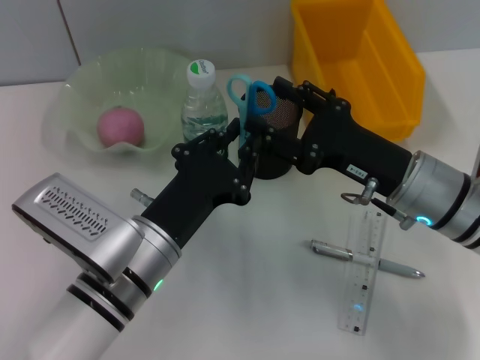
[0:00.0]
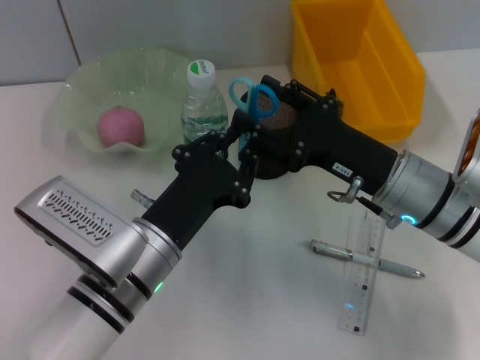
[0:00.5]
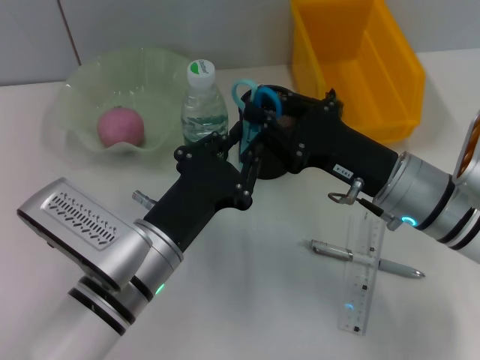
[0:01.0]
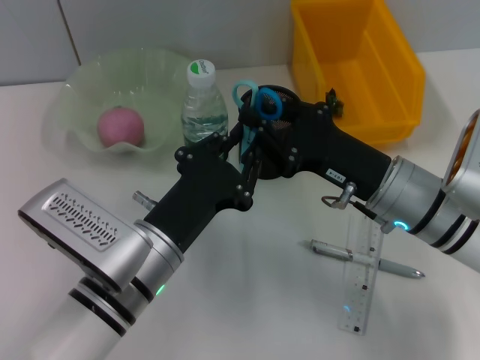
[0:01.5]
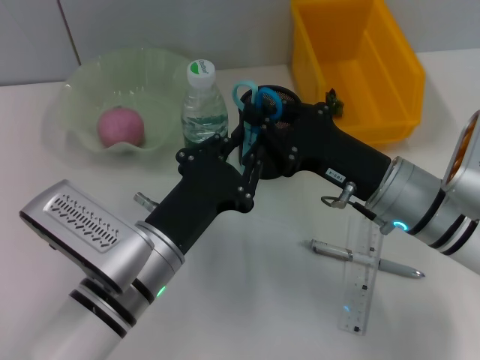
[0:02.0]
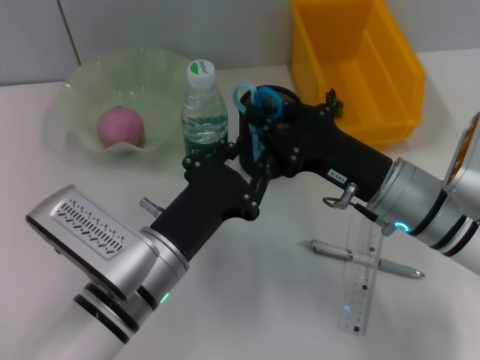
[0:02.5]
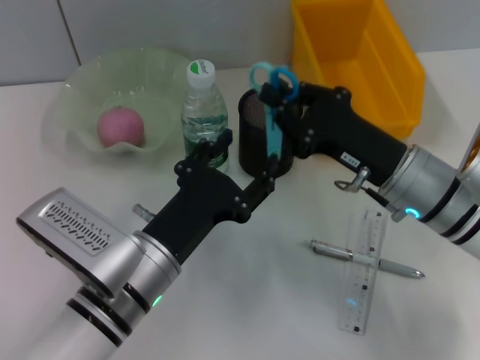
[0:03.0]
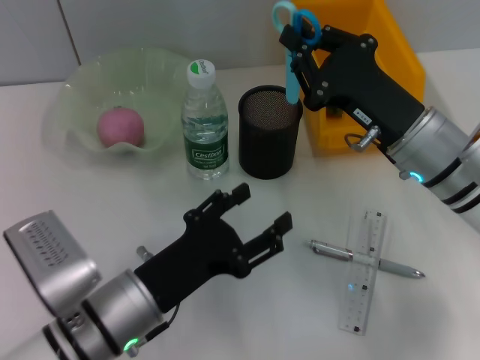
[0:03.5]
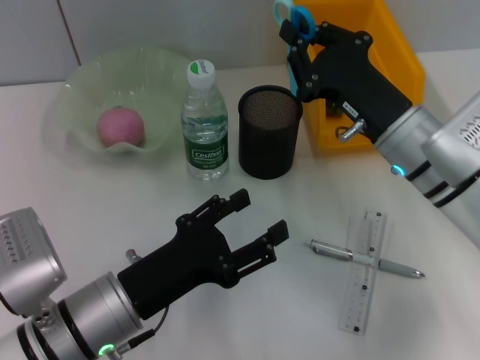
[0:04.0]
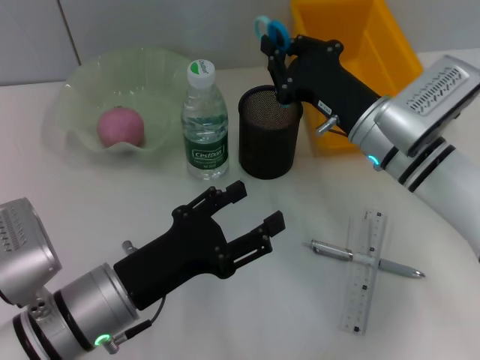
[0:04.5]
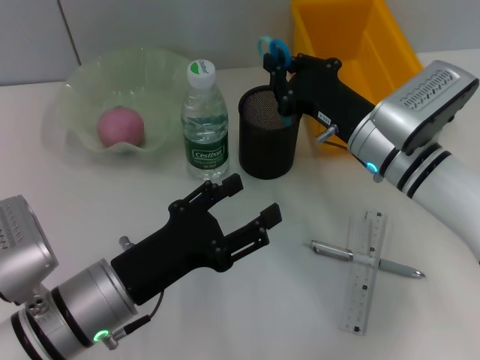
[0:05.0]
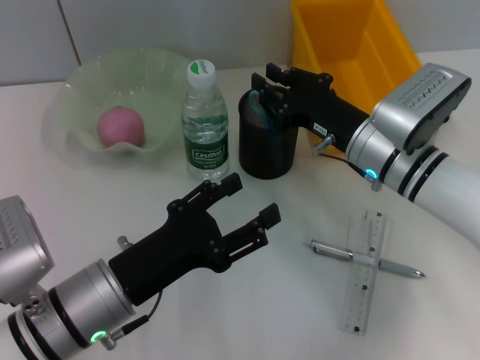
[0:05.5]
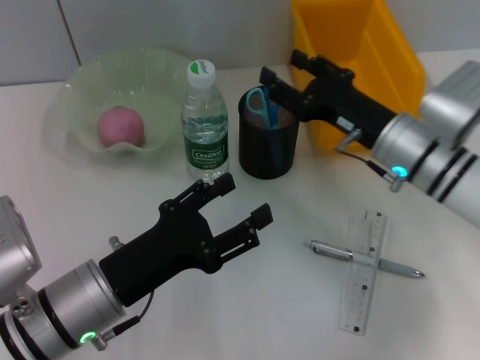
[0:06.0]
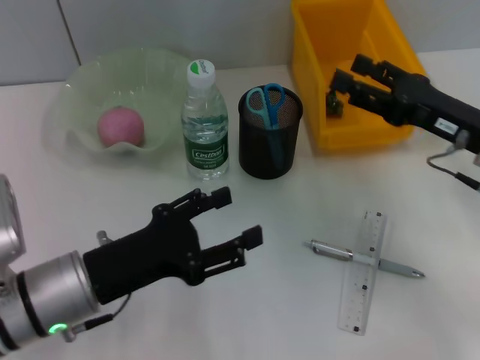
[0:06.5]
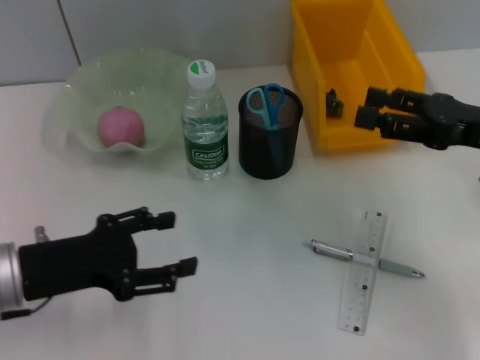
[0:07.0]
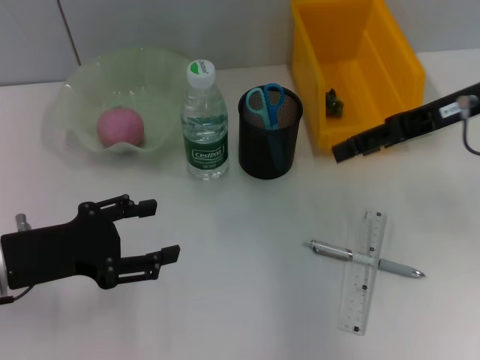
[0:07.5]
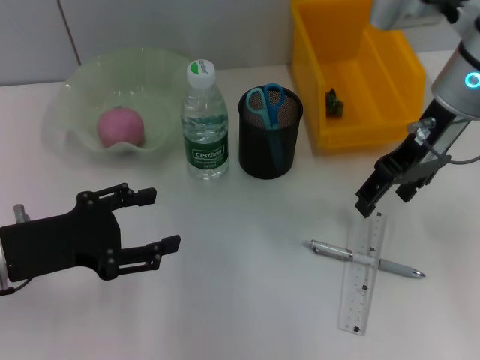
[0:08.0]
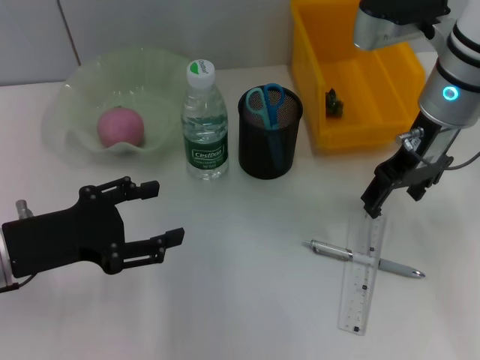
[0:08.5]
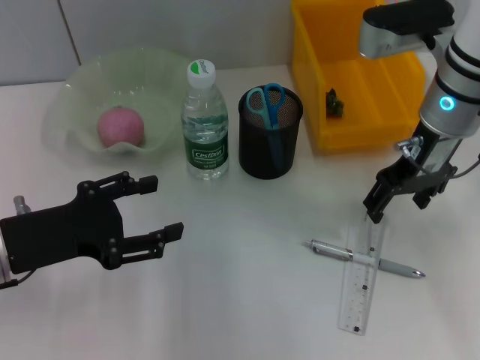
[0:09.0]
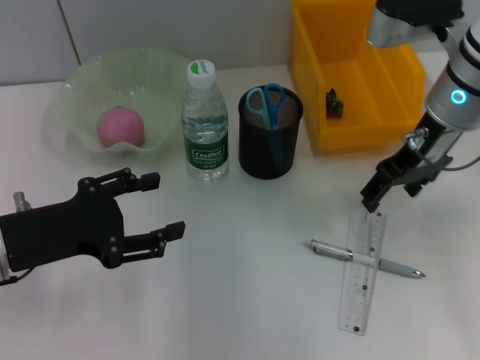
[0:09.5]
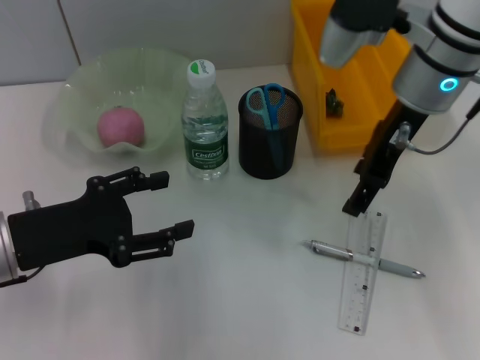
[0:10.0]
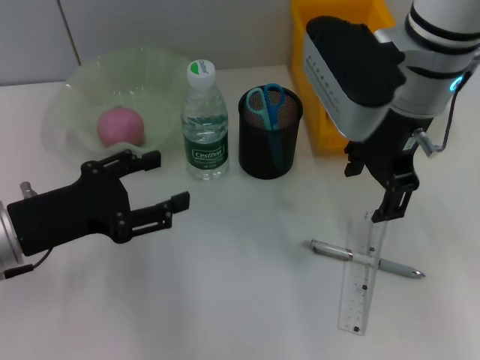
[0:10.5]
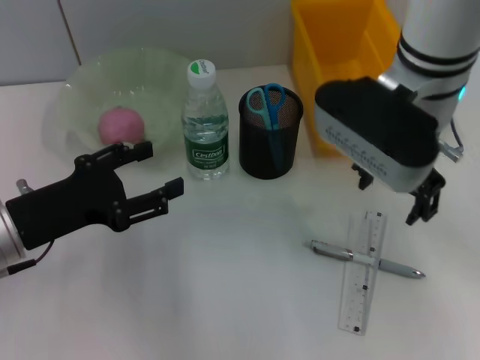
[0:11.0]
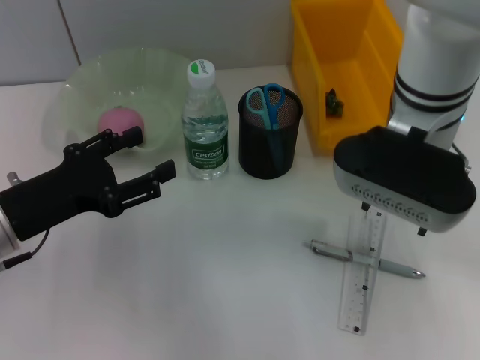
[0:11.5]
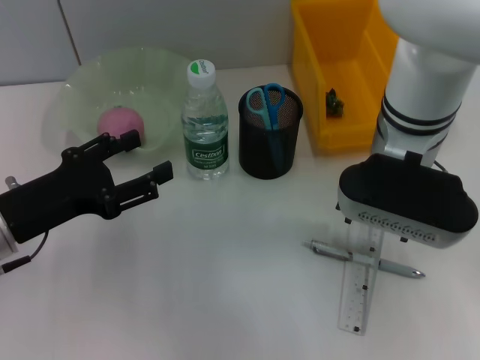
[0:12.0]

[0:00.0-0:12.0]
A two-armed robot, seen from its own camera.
Step, 0:00.0 to 0:03.0: Pass the blue scissors from the left hand to the right hand.
Step, 0:03.5 to 0:06.0: Place the blue scissors into the pen holder with the right hand.
0:00.0 to 0:02.0: The right gripper closes up.
0:02.0 to 0:04.0: The left gripper shifts by about 5 cm, and opens up.
0:04.0 to 0:06.0: The right gripper opens its fingers.
0:06.0 to 0:08.0: The right gripper shifts approximately 15 cm upward. Meanwhile the left gripper heads to the left, covering roughly 10 cm.
0:10.0 to 0:12.0: The right gripper changes place by approximately 5 cm.

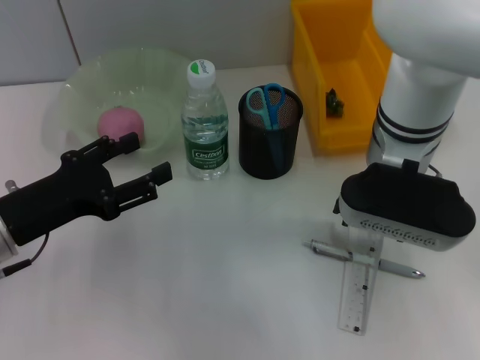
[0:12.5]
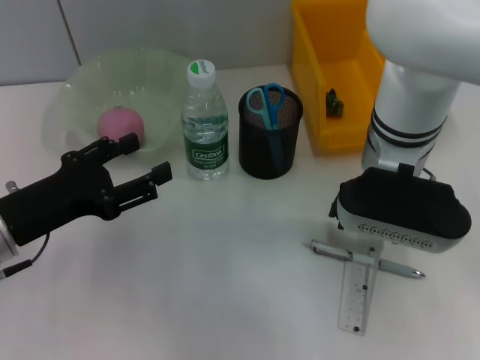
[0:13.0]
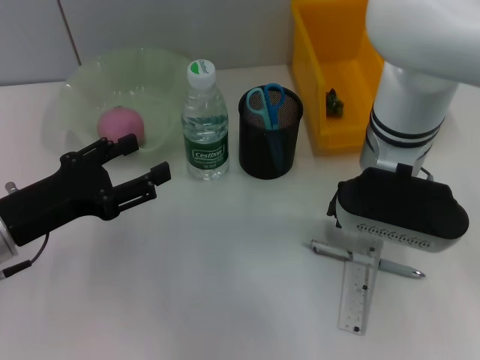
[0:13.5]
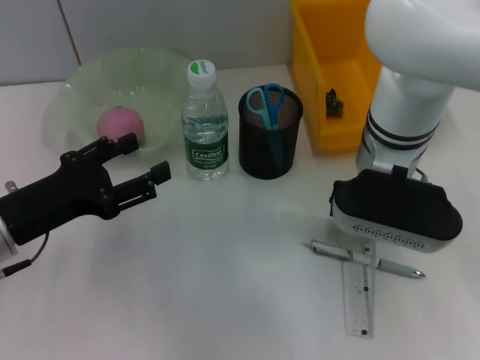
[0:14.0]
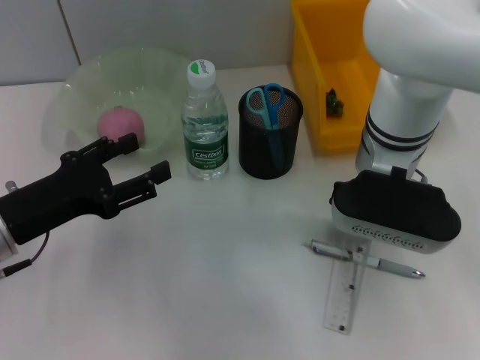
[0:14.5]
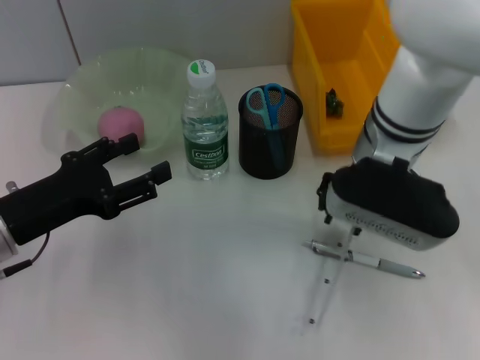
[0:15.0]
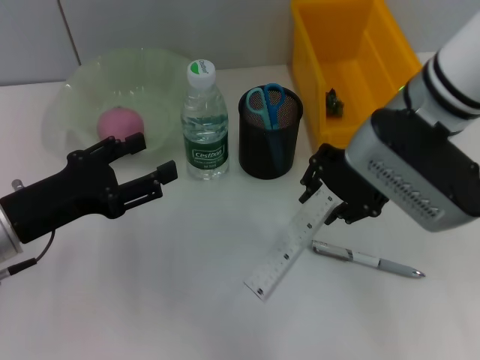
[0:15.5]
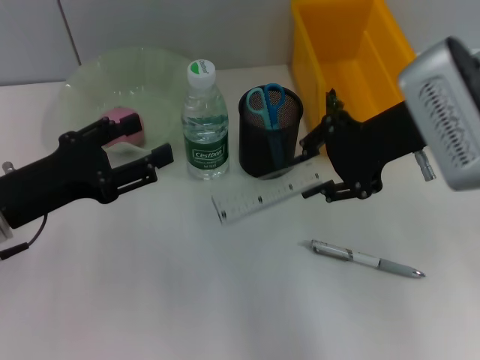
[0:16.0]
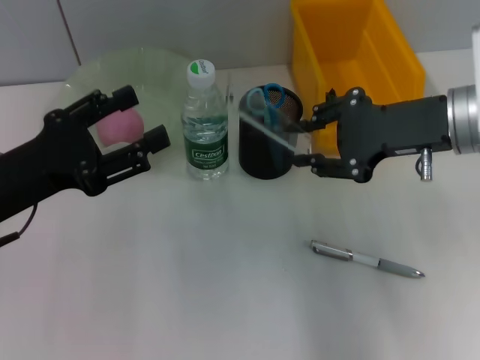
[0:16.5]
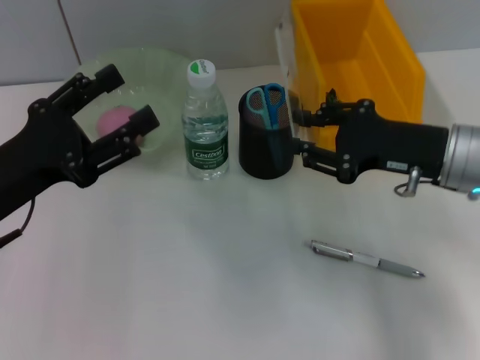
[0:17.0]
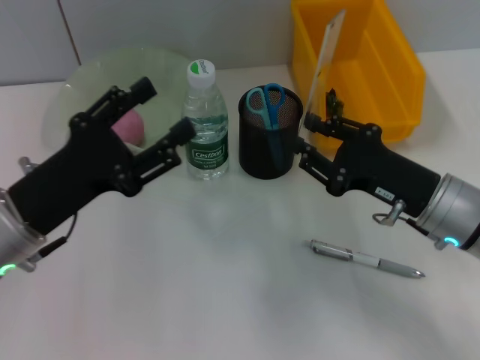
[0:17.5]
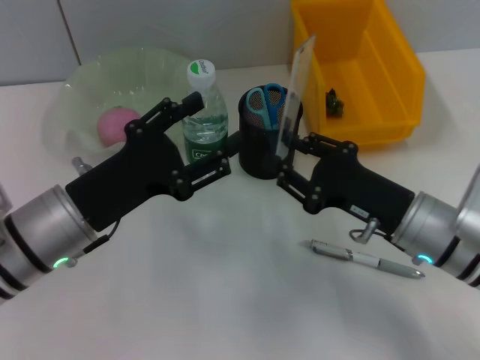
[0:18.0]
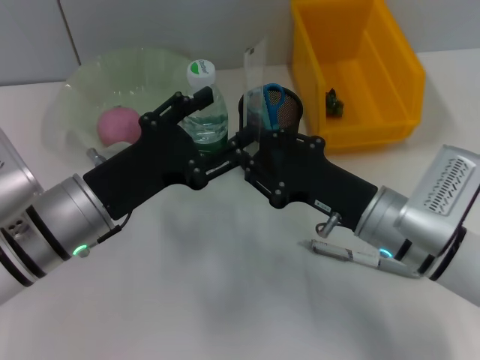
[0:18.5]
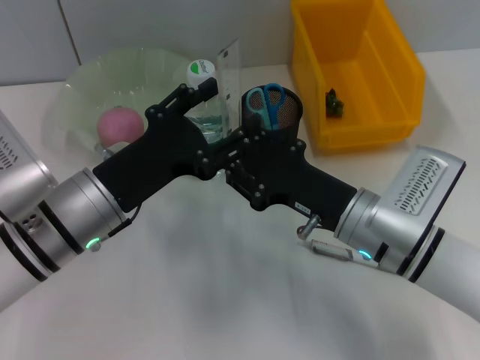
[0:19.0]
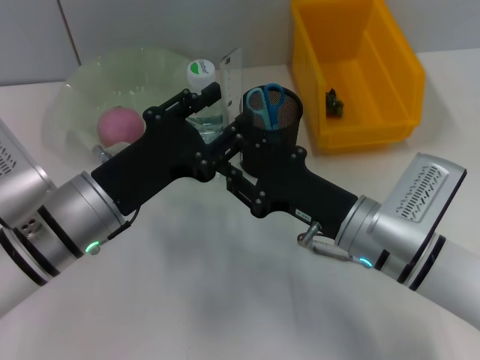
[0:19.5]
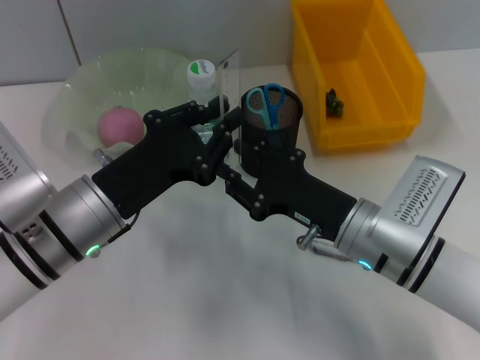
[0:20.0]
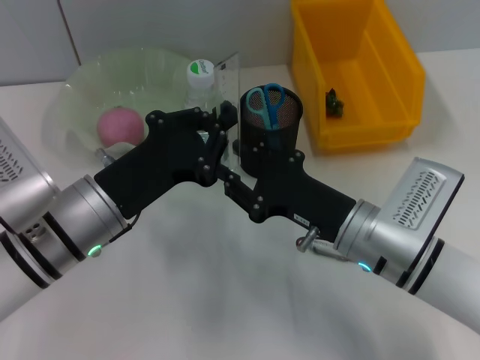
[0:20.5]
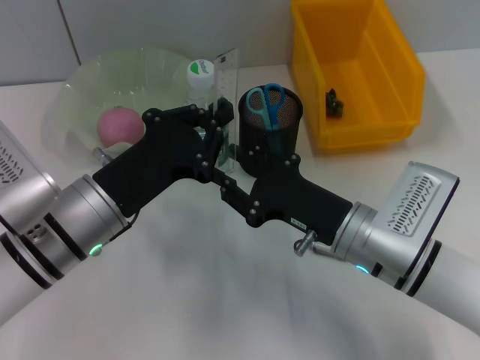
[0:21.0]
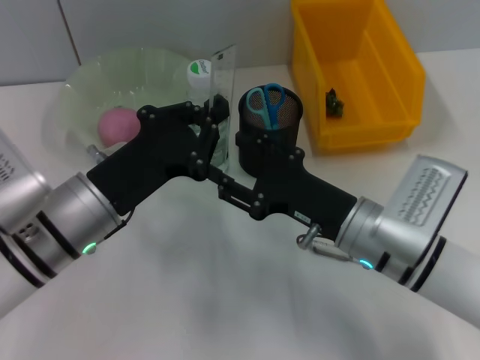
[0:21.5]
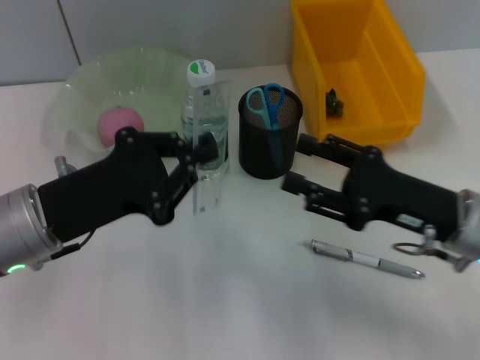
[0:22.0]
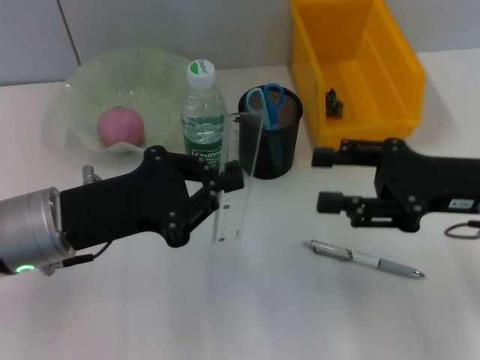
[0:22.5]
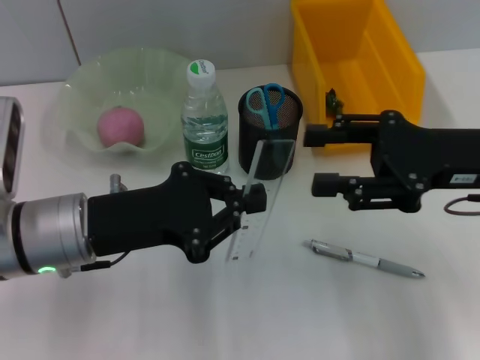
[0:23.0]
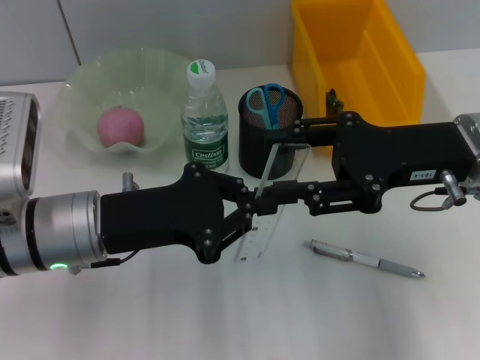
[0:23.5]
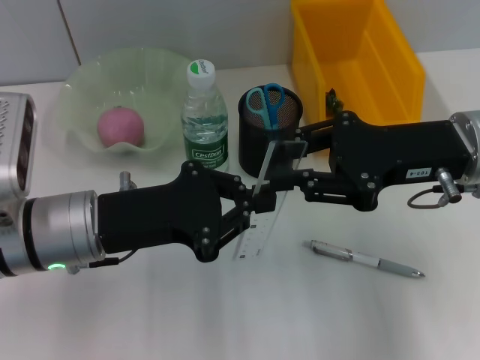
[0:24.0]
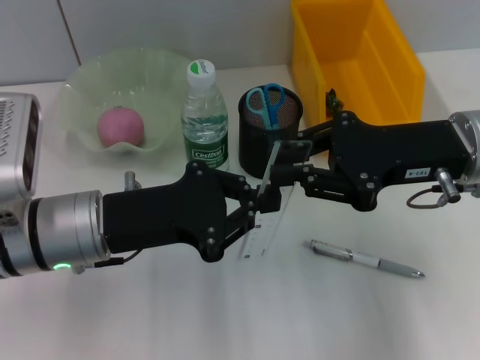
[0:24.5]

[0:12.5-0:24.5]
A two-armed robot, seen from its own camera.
Step, 0:12.5 to 0:14.5: Grab the ruler with the right hand.
Step, 0:15.0 to 0:22.0: Pass the ruler from the right hand to the left hand.
0:12.5 to 0:14.5: The right gripper closes.
0:14.5 to 0:16.5: The right gripper shifts roughly 10 cm to the right.
0:16.5 to 0:18.5: The left gripper goes approximately 10 cm to the right. Meanwhile the right gripper moves downward and to the left, some 15 cm.
0:18.5 to 0:20.5: The left gripper closes up.
0:20.5 to 0:22.5: The right gripper moves to the right and upward, roughly 15 cm.
0:22.5 to 0:24.5: The right gripper changes place by some 5 cm, and closes its fingers.

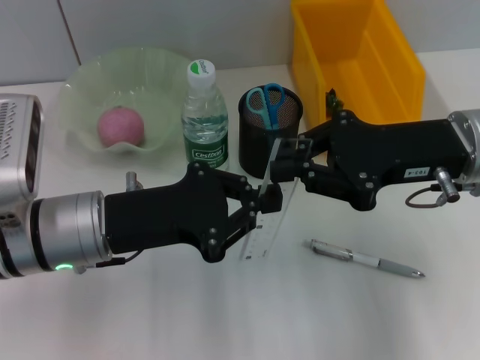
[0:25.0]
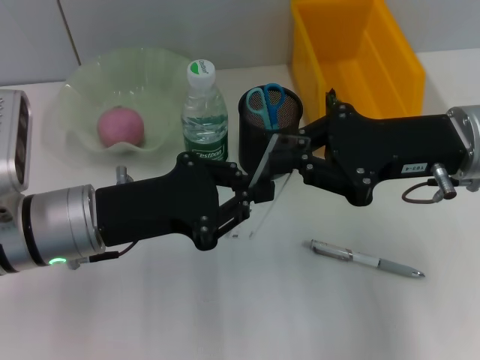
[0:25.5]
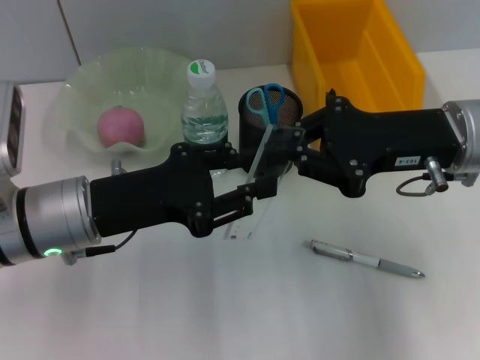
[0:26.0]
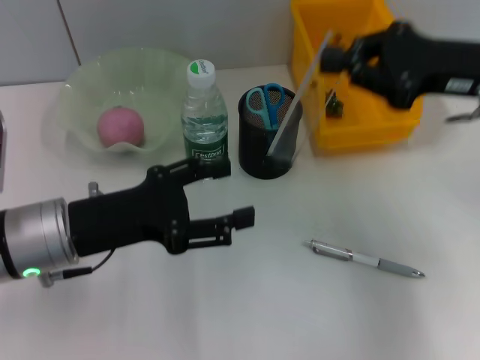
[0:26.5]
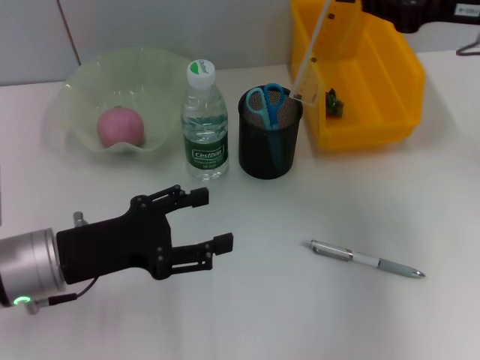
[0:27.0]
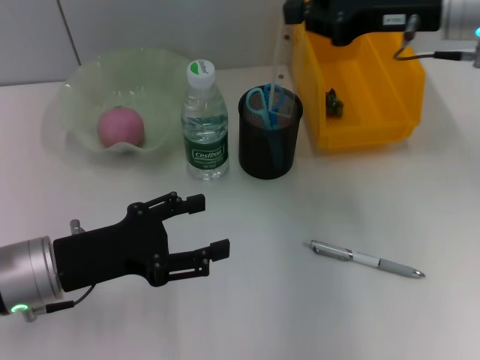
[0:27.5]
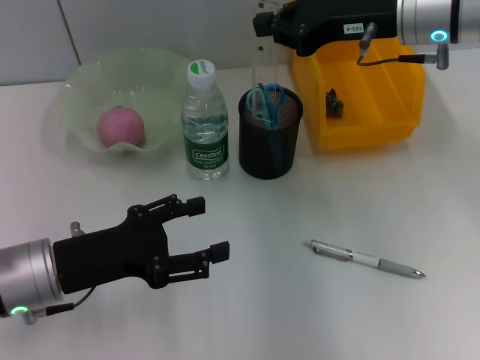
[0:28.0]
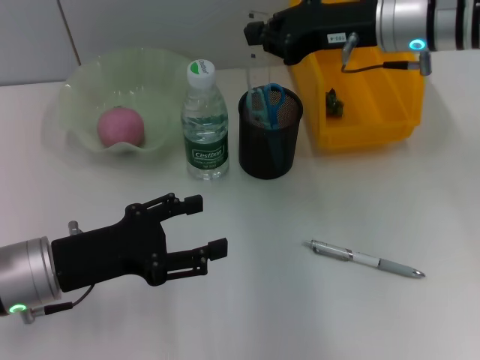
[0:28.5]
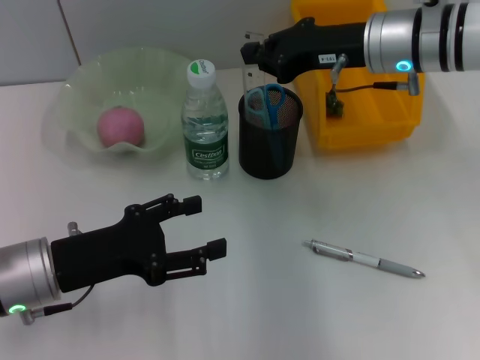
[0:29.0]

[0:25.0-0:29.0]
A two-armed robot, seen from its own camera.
0:25.0 to 0:27.0: The right gripper travels upward, forward and to the right by about 10 cm; the left gripper moves some 5 cm, and opens.
0:27.0 to 0:29.0: The right gripper heads to the left and downward, covering approximately 10 cm.
